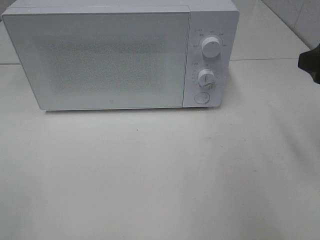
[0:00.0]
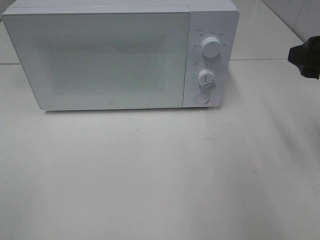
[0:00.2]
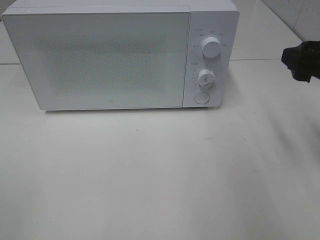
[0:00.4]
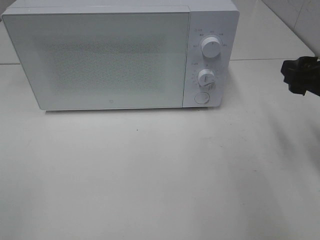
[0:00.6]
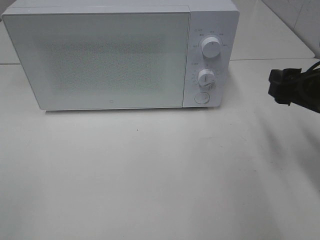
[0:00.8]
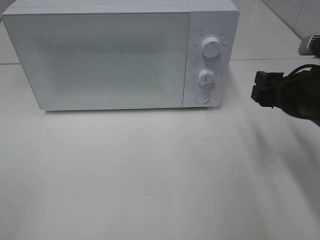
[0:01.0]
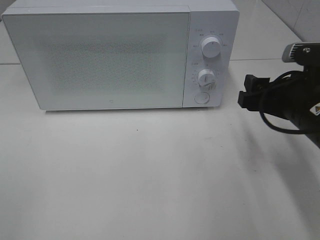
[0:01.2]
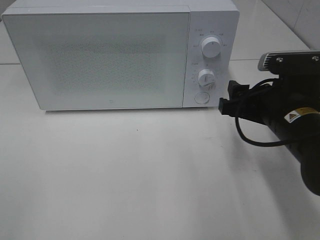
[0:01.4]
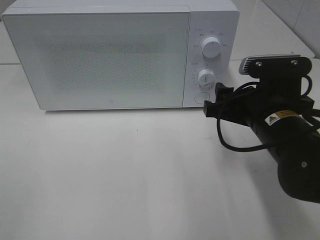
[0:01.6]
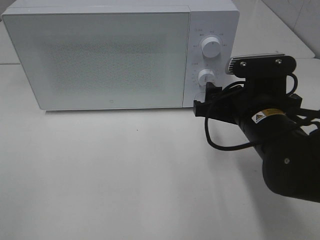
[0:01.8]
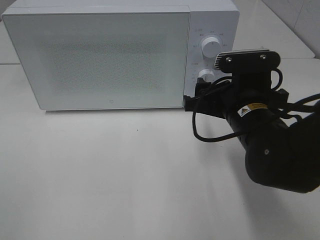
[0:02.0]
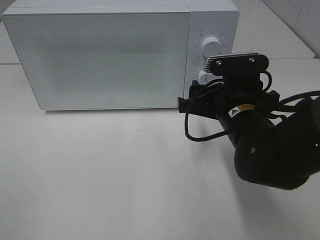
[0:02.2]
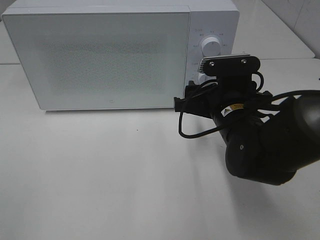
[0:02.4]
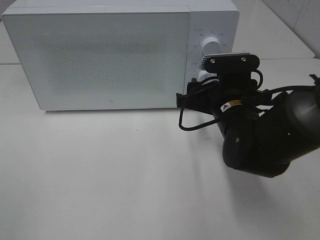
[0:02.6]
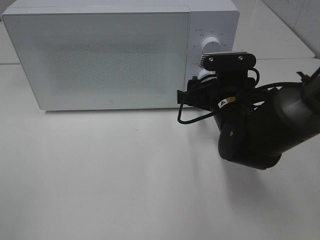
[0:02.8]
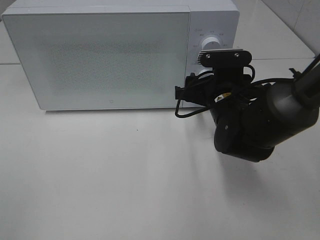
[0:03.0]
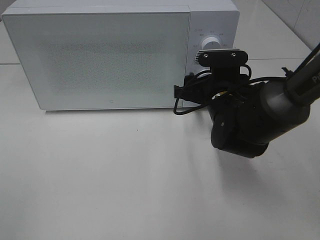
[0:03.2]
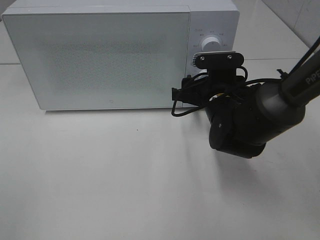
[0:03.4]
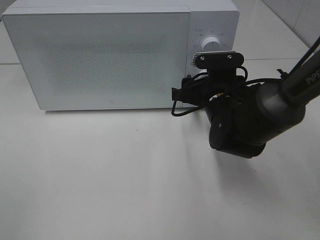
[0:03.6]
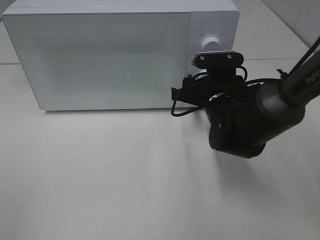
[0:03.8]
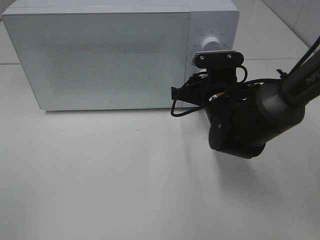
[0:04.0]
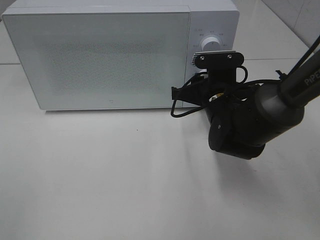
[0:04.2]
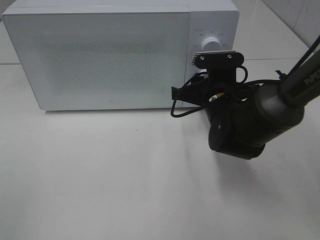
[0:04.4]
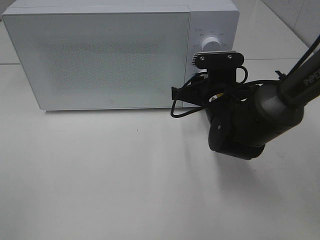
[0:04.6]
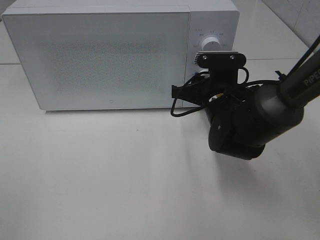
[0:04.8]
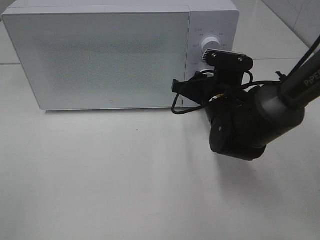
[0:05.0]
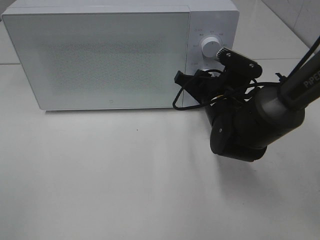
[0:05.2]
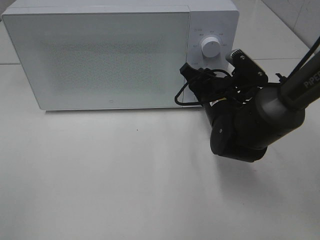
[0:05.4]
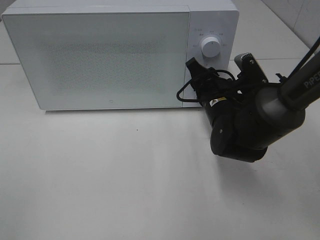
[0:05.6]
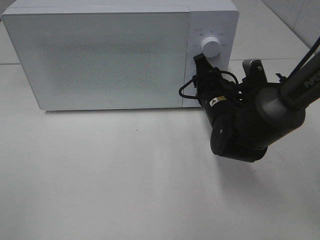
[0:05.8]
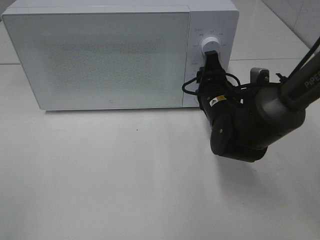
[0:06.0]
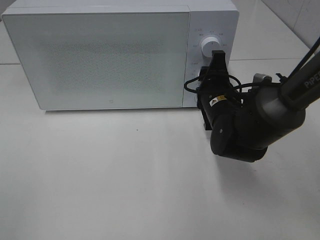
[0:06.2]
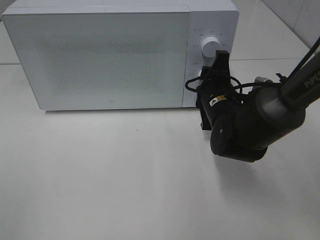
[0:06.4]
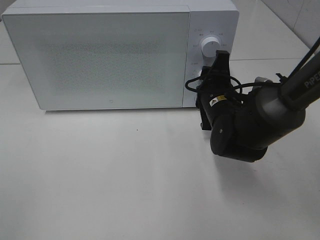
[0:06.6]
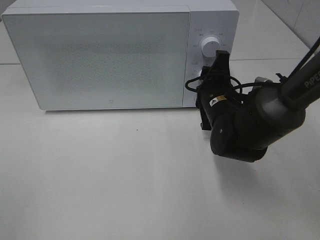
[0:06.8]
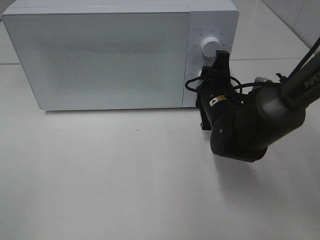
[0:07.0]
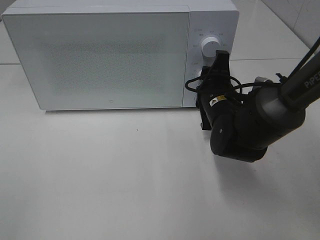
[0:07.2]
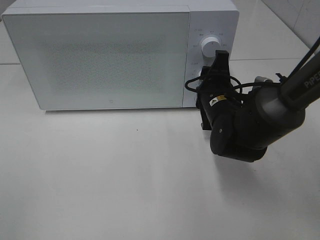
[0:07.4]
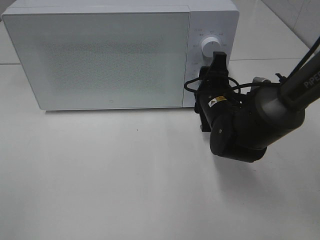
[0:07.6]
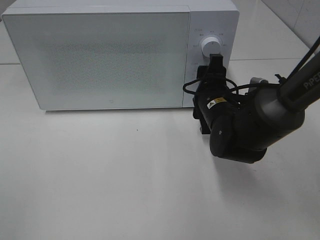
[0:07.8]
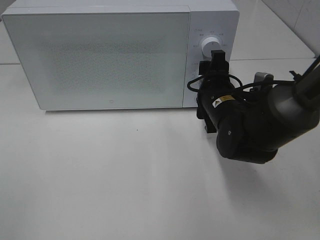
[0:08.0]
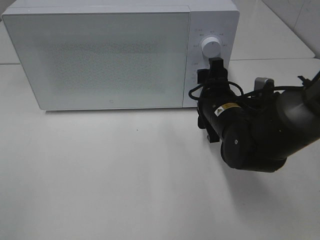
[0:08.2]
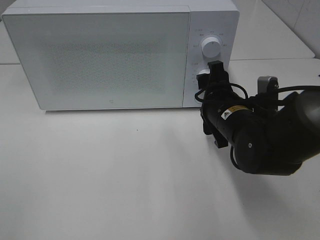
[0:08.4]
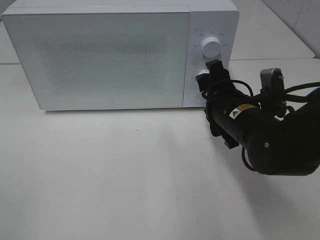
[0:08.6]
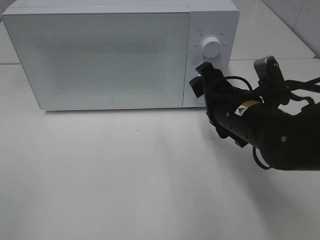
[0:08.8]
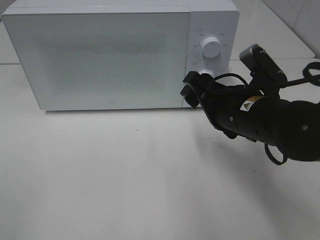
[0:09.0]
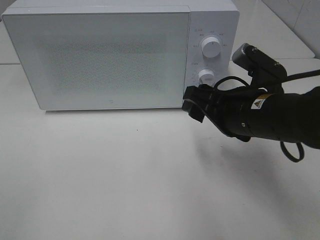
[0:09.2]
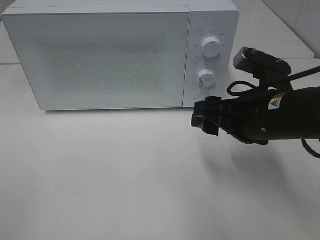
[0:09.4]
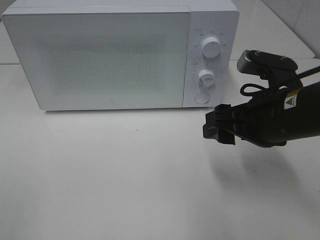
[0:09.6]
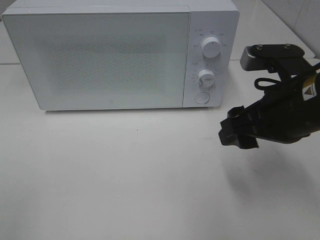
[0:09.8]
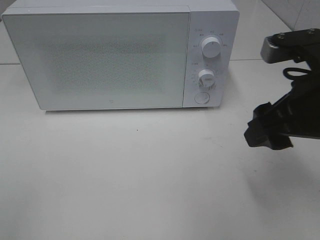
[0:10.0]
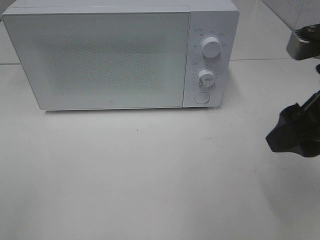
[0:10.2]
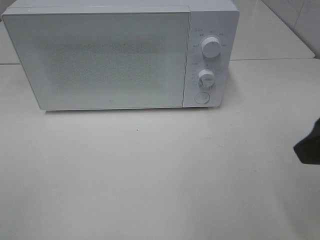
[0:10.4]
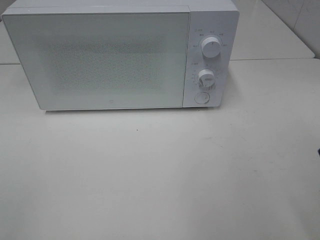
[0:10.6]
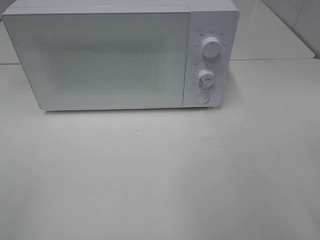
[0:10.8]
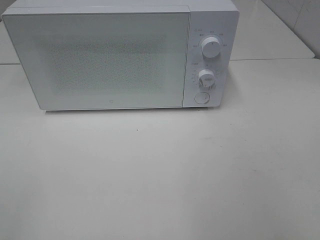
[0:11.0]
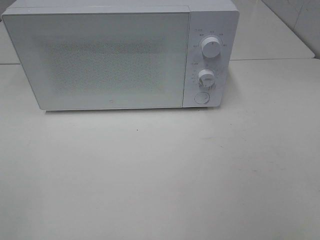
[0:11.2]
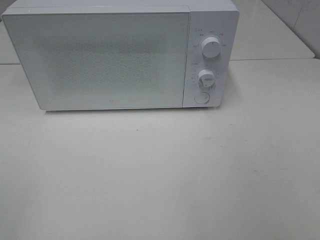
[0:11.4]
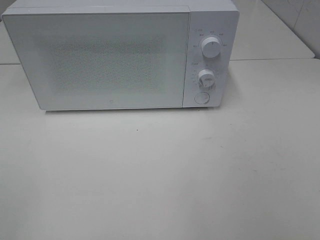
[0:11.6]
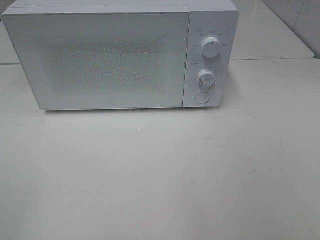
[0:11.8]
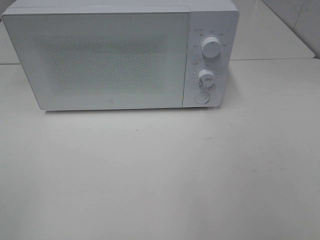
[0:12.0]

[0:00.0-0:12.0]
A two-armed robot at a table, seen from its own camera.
Task of the whole recording: Heat Sandwich.
Step, 0:00.0 to 0:08.4: Right hand: twist timer button.
0:00.0 to 0:01.6: The right gripper shifts some 15 cm to the left and downward.
0:01.6 to 0:03.0: The right gripper heads forward, covering some 10 cm.
0:03.0 to 0:04.4: The right gripper closes up.
0:06.0 to 0:07.6: The grippers make only small movements.
0:07.6 to 0:09.0: The right gripper heads backward and upward, covering some 10 cm.
0:09.0 to 0:10.4: The right gripper goes roughly 20 cm upward, backward and to the right.
0:10.4 to 0:12.0: The right gripper goes some 15 cm backward and to the right.

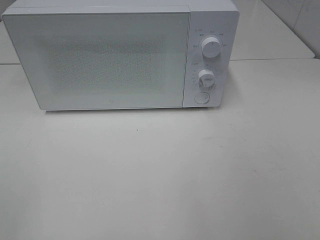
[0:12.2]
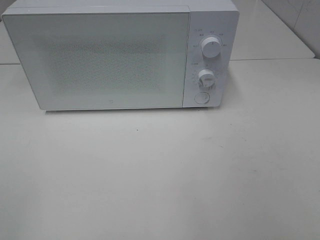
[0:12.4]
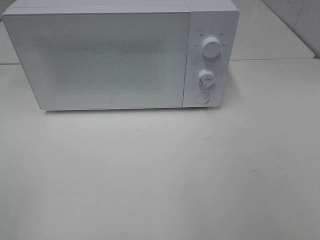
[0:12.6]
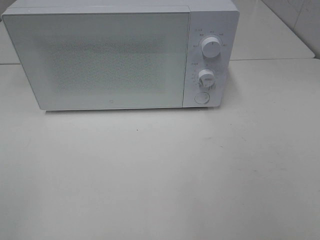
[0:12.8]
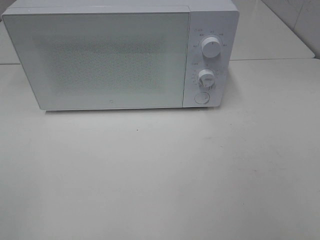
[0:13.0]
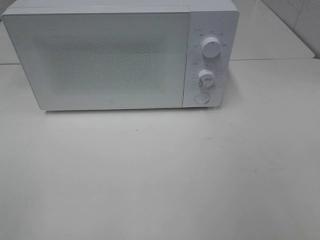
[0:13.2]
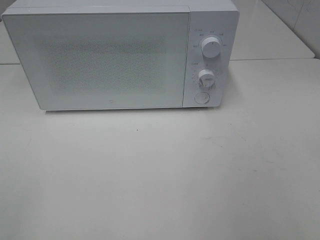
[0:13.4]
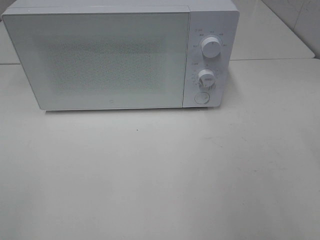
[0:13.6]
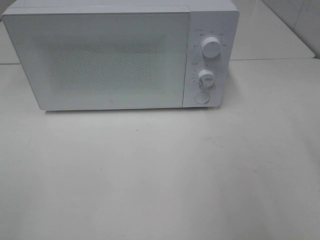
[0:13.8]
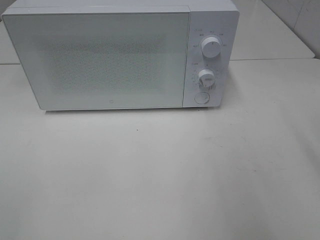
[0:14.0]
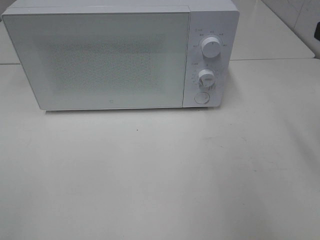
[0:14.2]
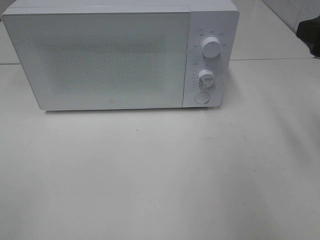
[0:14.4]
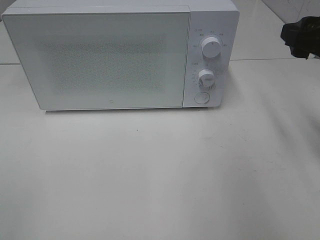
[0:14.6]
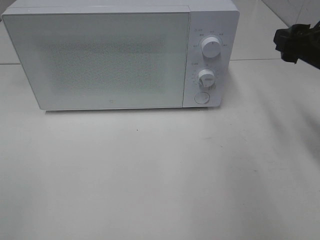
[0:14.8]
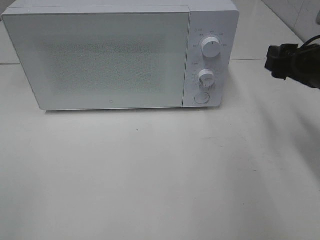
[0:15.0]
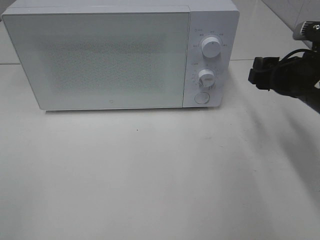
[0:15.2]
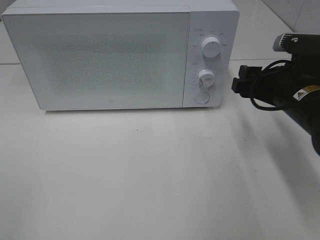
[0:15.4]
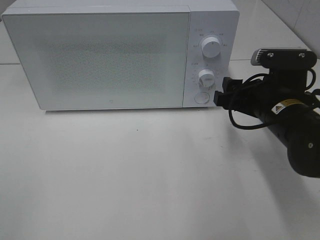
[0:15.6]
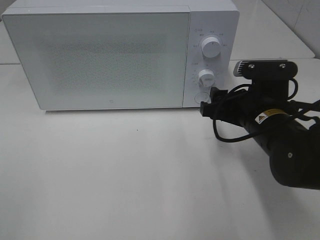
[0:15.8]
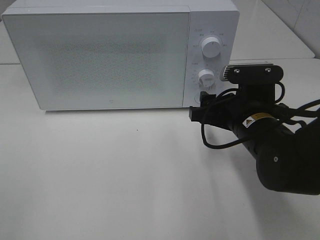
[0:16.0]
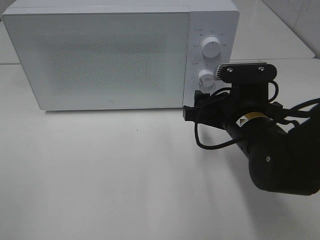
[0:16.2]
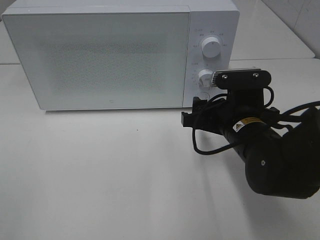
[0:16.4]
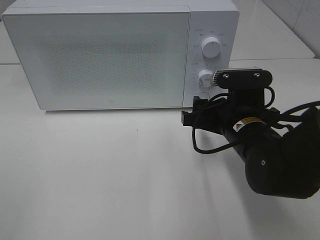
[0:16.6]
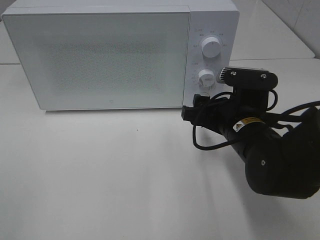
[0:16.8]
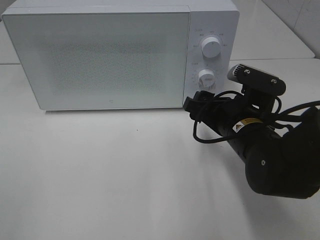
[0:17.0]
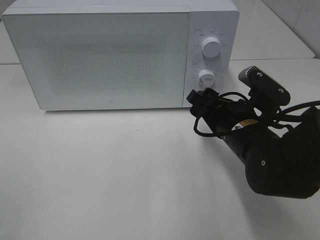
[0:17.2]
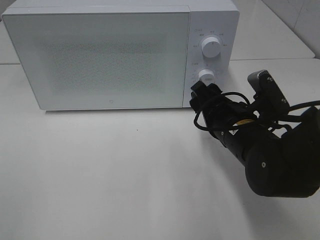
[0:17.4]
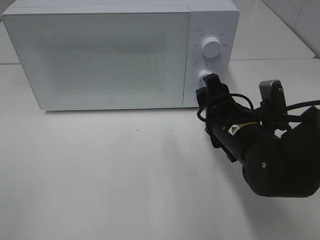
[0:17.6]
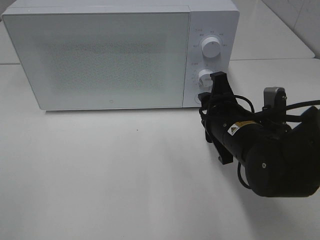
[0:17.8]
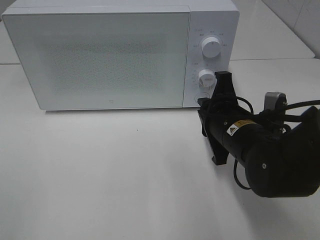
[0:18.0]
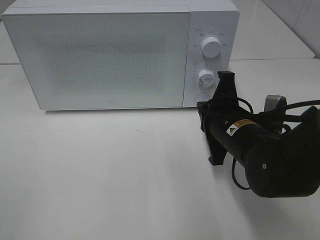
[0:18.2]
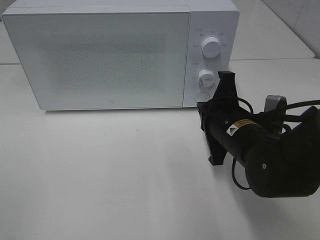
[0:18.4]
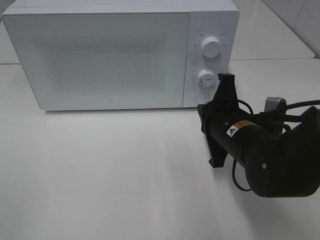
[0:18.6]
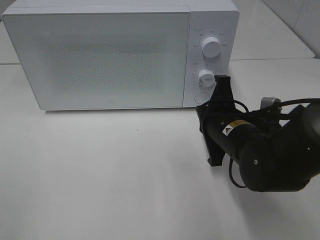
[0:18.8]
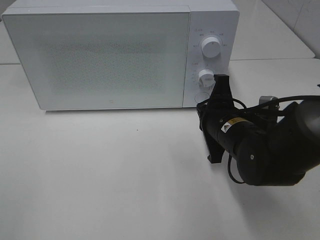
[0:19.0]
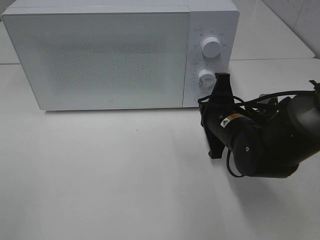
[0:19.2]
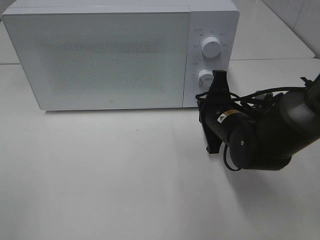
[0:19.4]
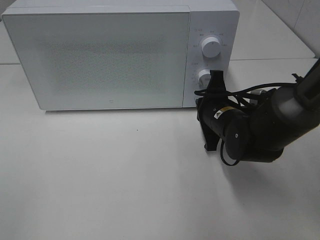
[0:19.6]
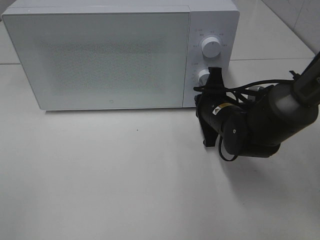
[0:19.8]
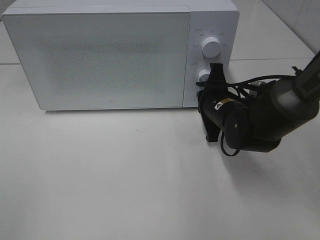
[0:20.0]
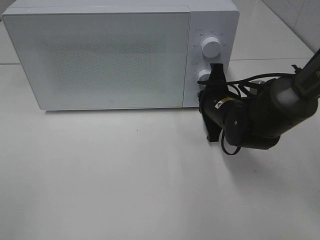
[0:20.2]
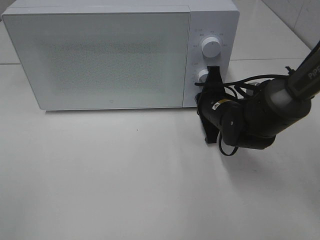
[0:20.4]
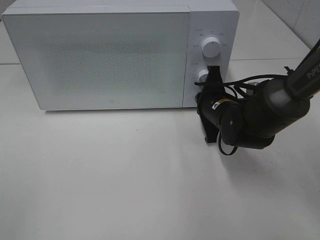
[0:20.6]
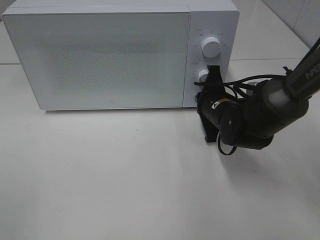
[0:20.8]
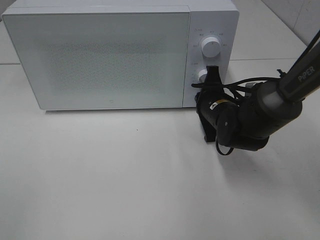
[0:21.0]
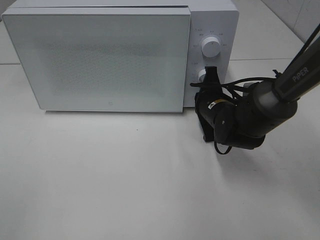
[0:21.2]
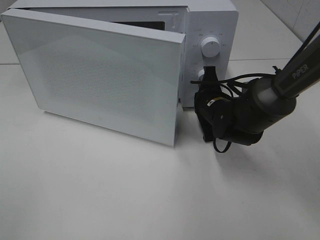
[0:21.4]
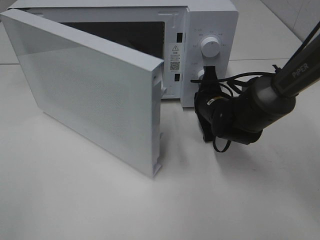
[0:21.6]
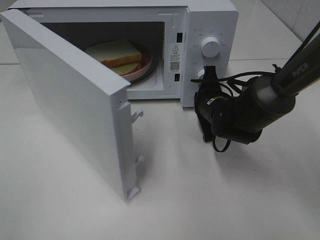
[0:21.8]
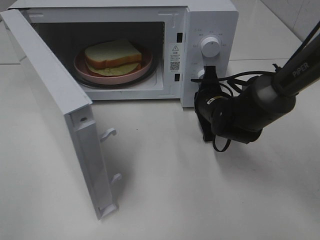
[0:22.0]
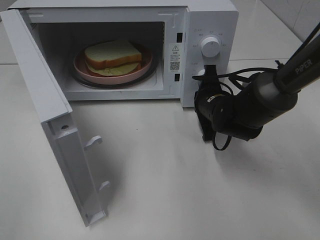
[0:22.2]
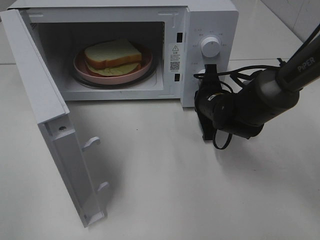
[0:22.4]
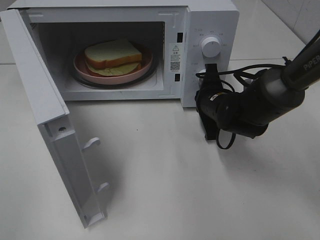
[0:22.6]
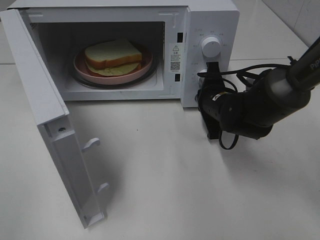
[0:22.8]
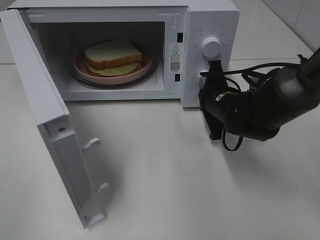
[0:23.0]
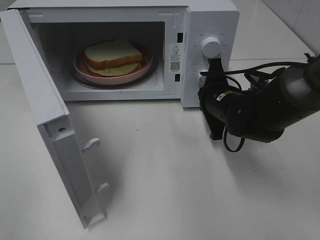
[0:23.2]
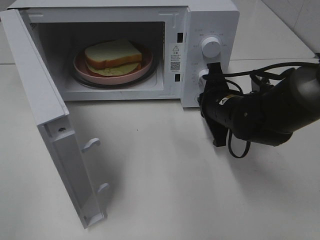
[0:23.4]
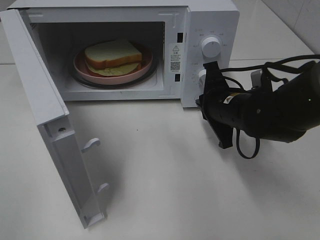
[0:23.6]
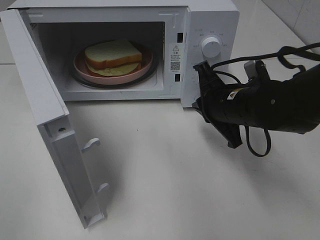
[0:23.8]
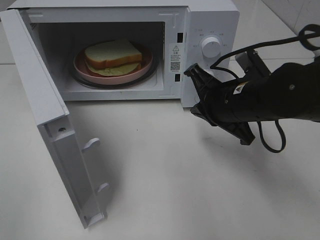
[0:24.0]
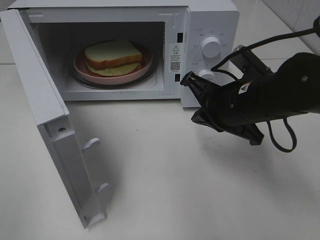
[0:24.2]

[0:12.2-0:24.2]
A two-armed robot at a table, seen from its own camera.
Task of the whole recording: Heat Sandwich.
Step, 0:12.2 to 0:23.2: Right hand: press the switch.
0:13.8 to 0:15.2: The right gripper shifts roughly 20 cm forward and downward.
0:15.2 to 0:16.6: The right gripper travels to the left and downward by about 10 cm.
0:16.6 to 0:18.2: The right gripper closes its fingers.
0:18.2 to 0:19.8: The right gripper is displaced forward by roughly 10 cm.
0:19.8 to 0:21.2: There are only small adjustments of the grippers.
0:22.6 to 0:24.2: The right gripper travels backward and upward by about 15 cm.
